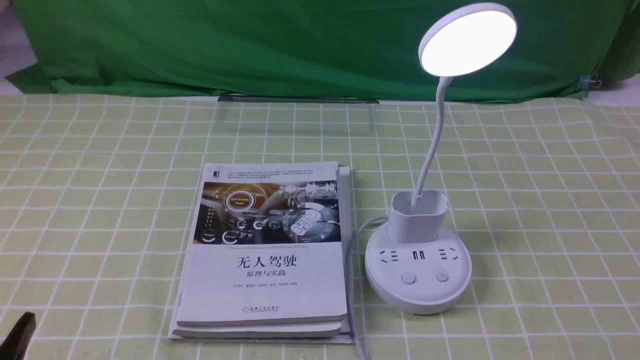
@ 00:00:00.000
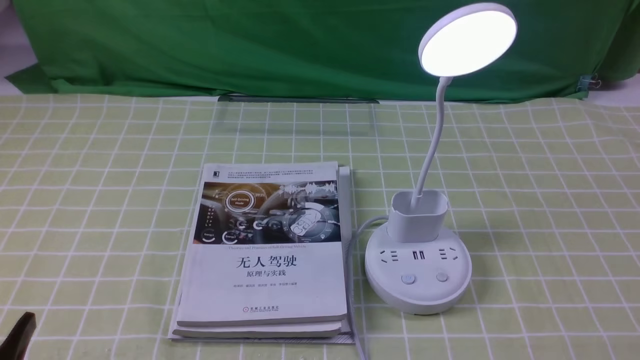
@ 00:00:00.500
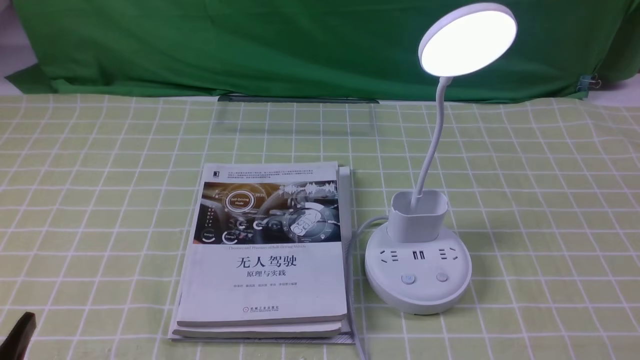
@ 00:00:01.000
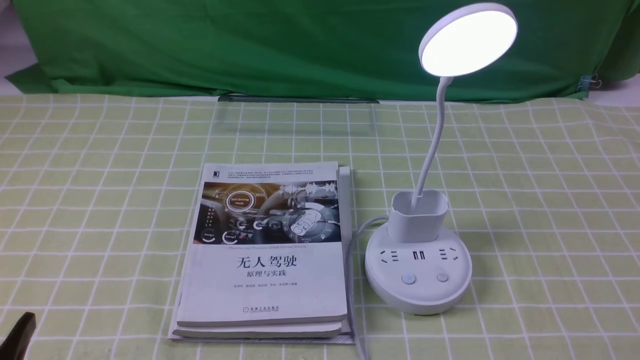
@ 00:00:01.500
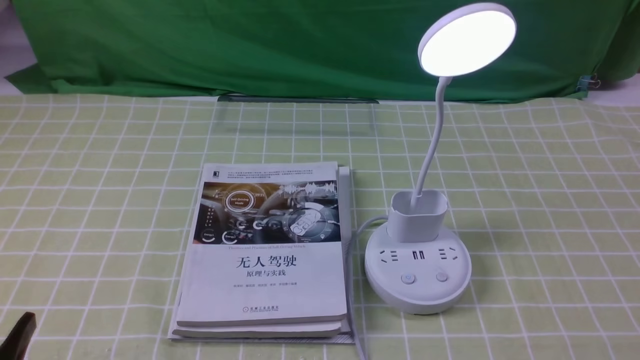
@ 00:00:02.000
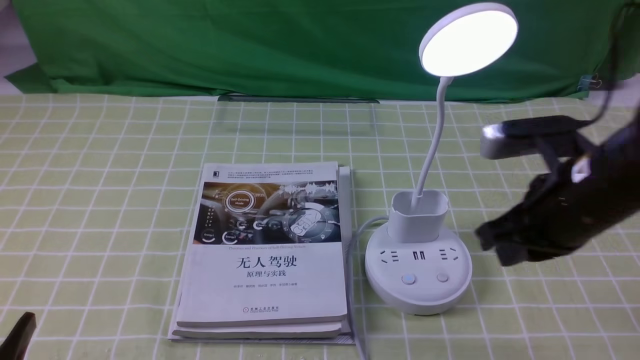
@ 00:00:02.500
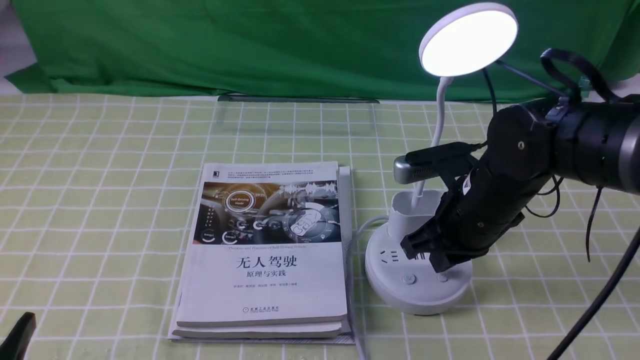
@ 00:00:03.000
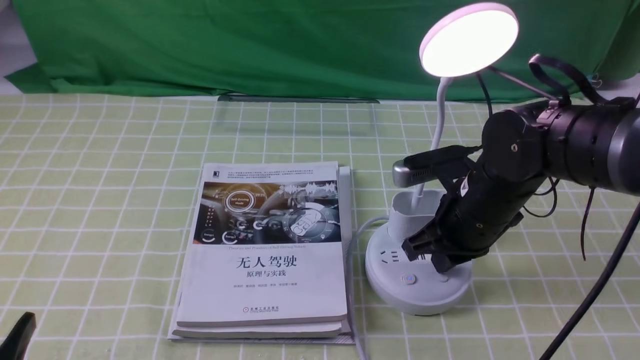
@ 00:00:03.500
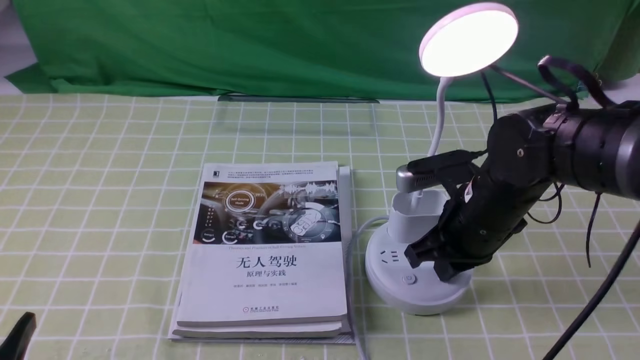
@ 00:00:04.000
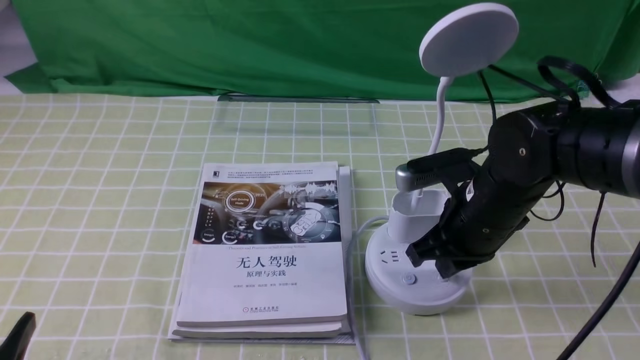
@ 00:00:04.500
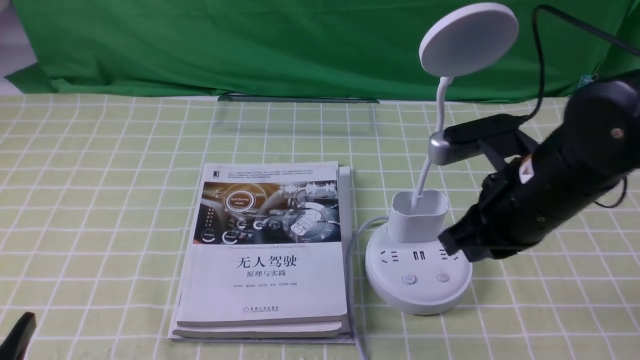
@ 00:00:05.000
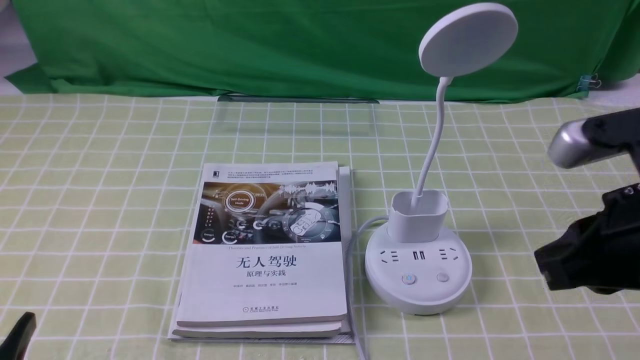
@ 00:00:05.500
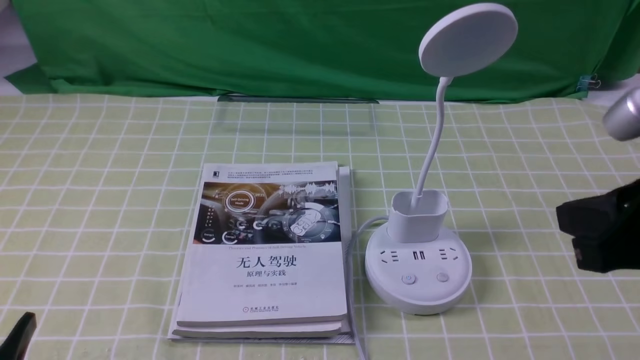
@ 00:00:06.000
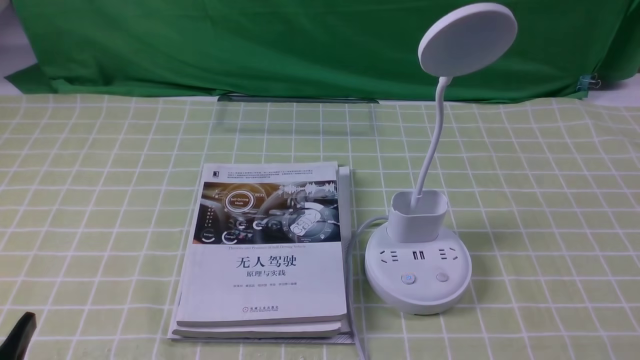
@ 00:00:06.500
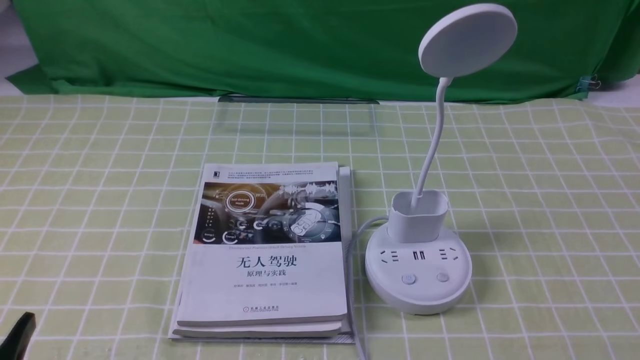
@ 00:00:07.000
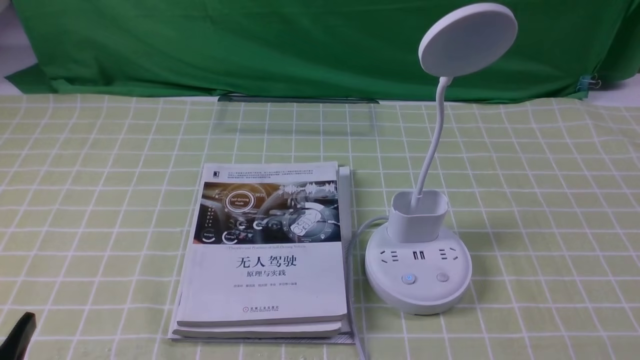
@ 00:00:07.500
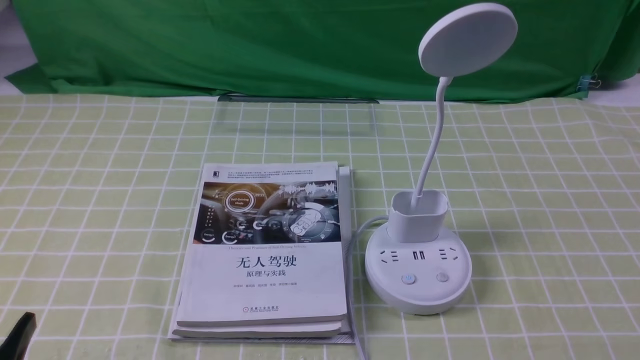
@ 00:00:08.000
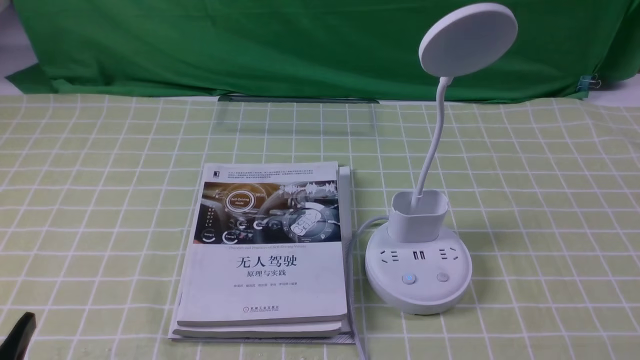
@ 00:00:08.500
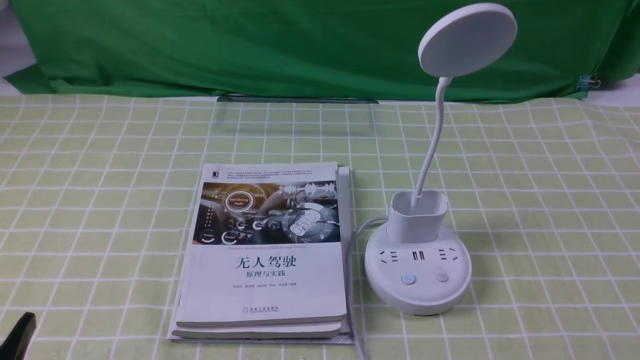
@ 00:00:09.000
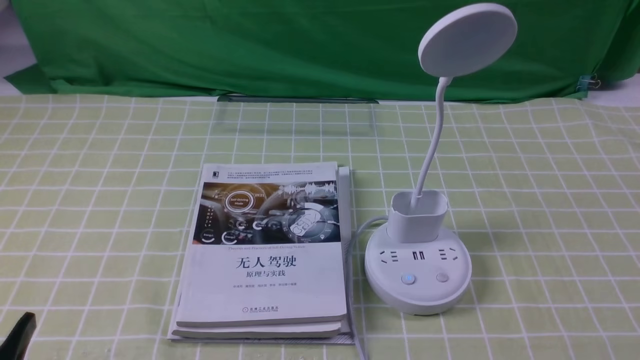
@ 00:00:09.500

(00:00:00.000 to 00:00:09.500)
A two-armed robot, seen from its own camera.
Task of the whole recording: turn off the desk lamp on the green coffee tablecloth by hand.
Step, 00:00:00.000 - 00:00:04.500: use the right arm to press the button switch on the lamp holder.
00:00:02.000 - 00:00:04.000: The right gripper heads forward, to the left and downward, covering some 25 cm.
00:00:04.000 - 00:00:05.500: The right gripper goes approximately 20 cm upward, backward and to the right.
00:00:05.500 - 00:00:07.500: The right gripper is displaced downward, backward and to the right by roughly 20 cm.

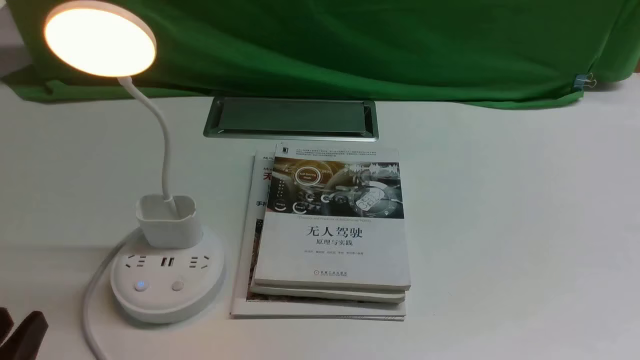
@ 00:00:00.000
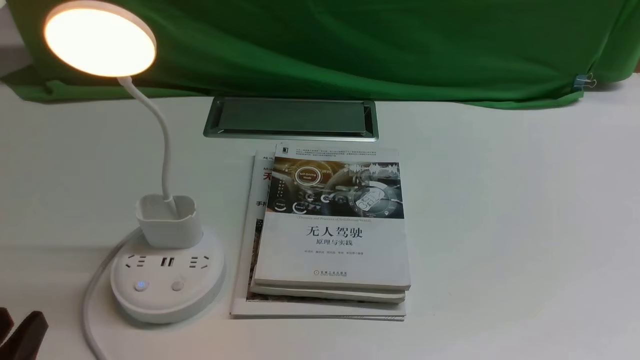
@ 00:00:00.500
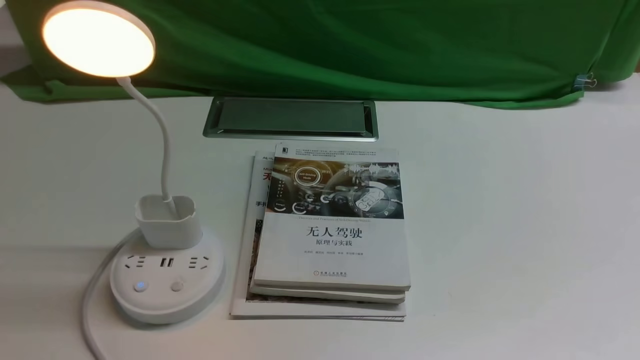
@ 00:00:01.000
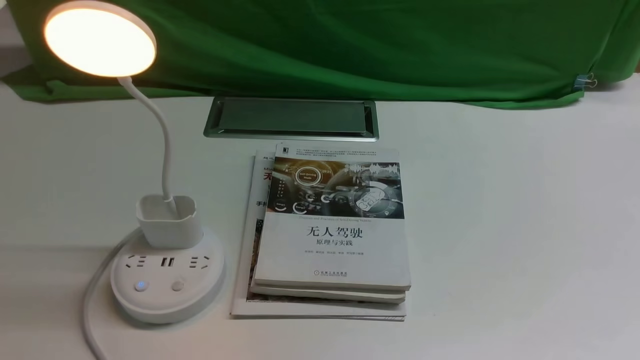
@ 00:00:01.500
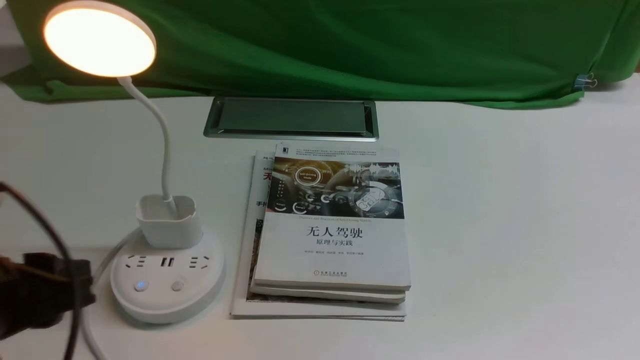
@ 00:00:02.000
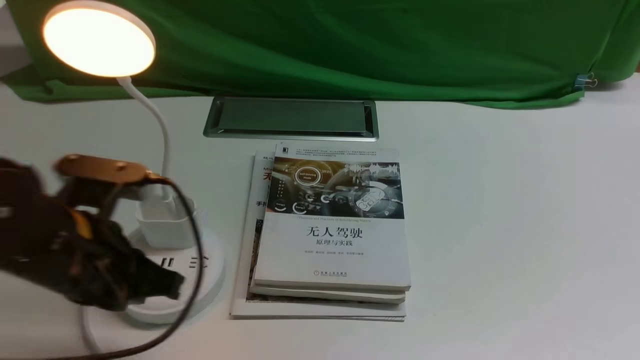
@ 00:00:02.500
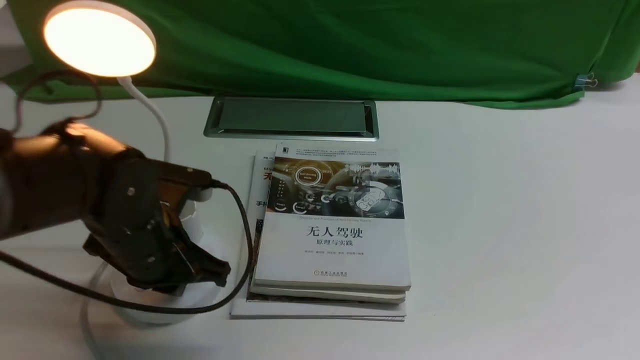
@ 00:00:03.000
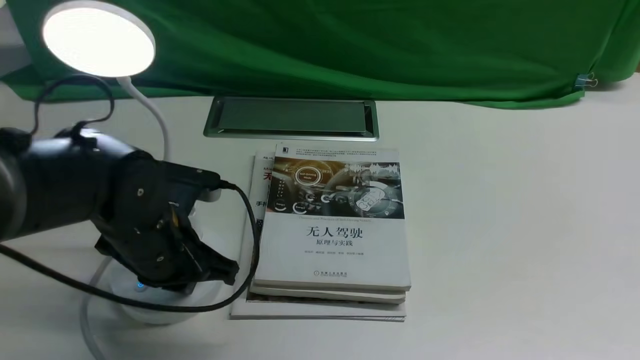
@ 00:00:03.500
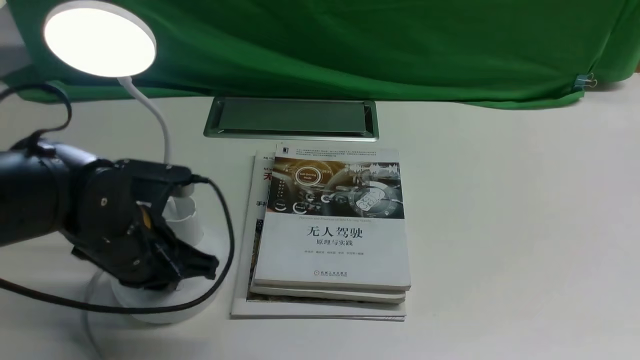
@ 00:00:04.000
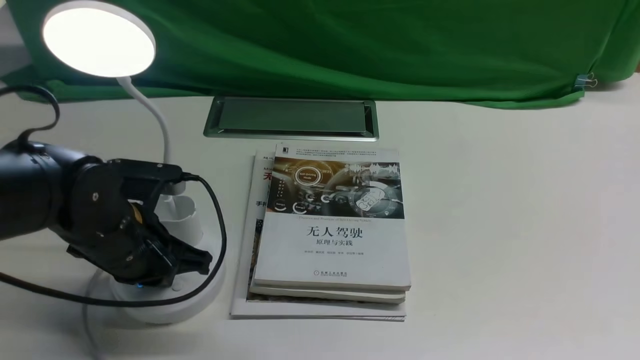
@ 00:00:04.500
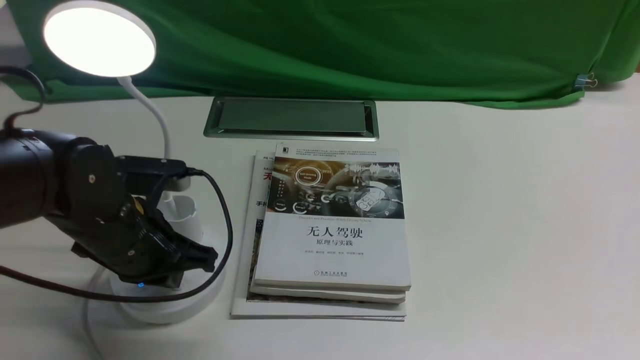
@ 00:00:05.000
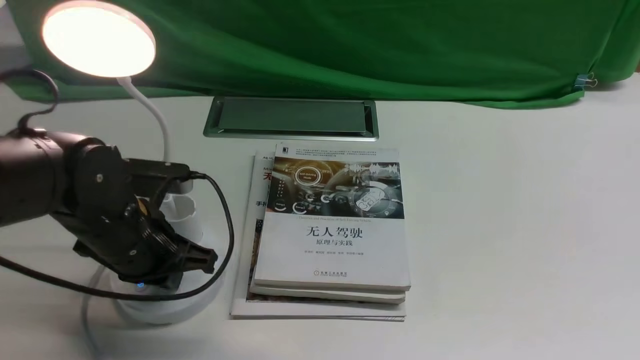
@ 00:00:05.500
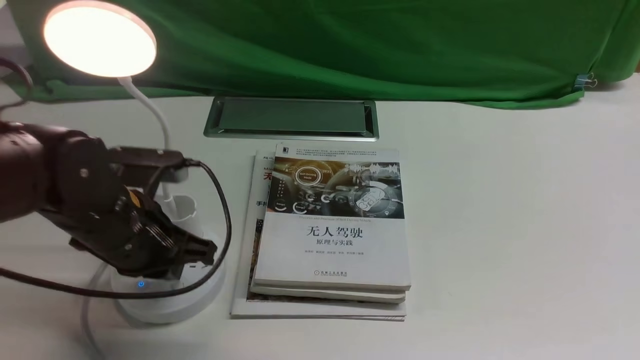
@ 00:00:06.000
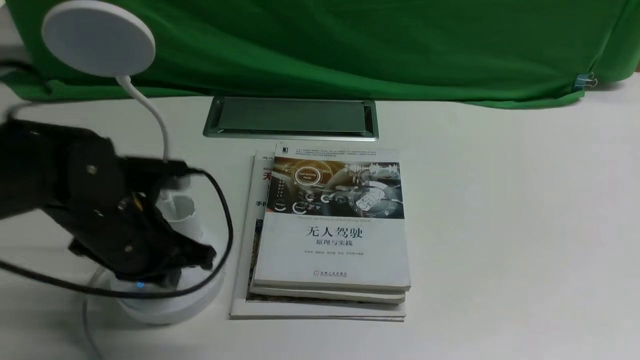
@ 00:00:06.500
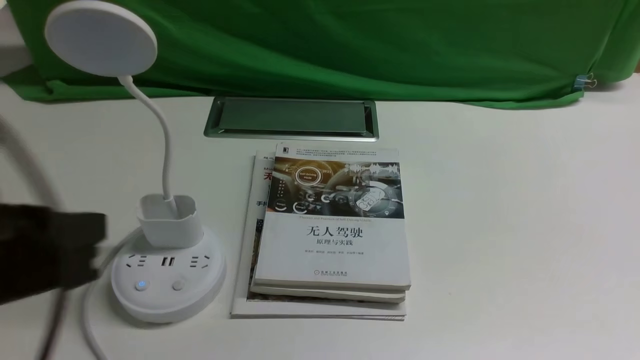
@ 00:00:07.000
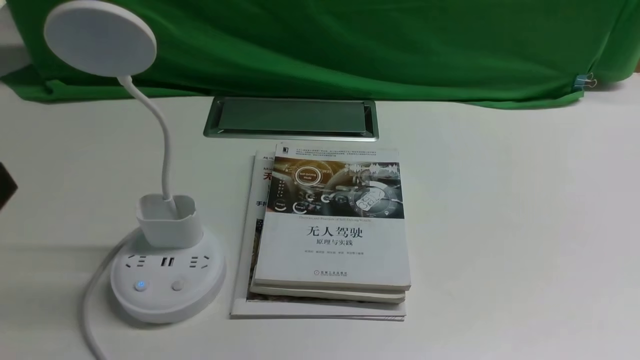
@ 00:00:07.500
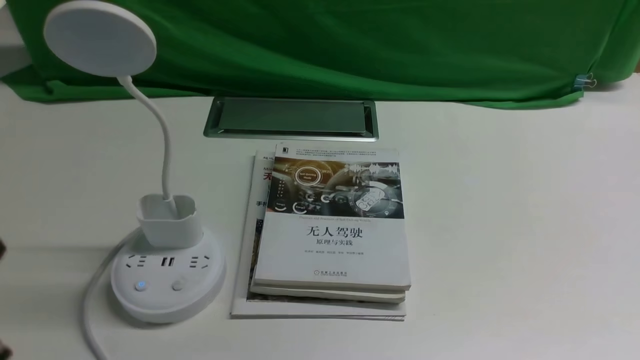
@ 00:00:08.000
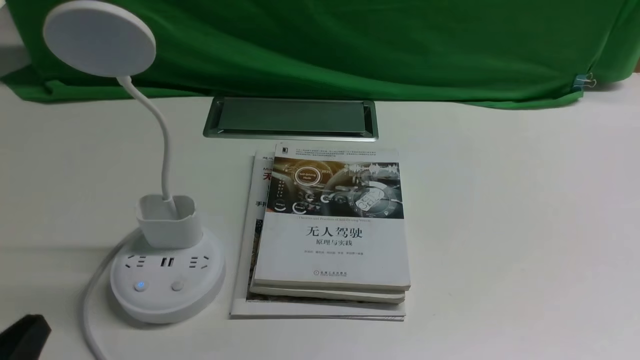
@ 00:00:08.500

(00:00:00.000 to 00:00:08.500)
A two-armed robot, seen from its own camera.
Task of the whole recording: turn off the desk lamp on the white desktop by hand.
Step, 00:00:00.000 - 00:00:06.500: use the left arm to press the button switch on the lamp holder.
00:00:00.000 - 00:00:02.000: The left gripper goes some 10 cm forward and upward.
00:00:02.000 - 00:00:04.000: The left gripper shifts roughly 15 cm forward, downward and to the right, and closes up.
00:00:04.000 - 00:00:06.500: There are only small adjustments of the grippers.
00:00:06.500 - 00:00:08.500: The left gripper is displaced backward by some 20 cm.
